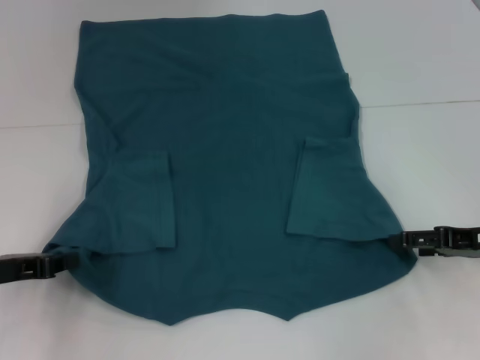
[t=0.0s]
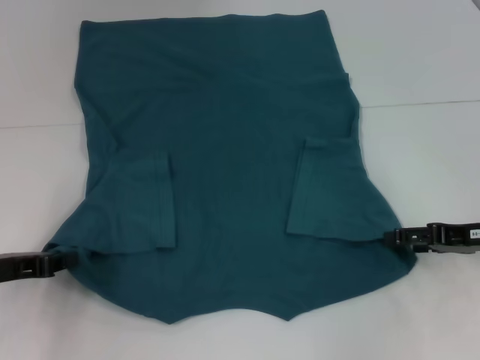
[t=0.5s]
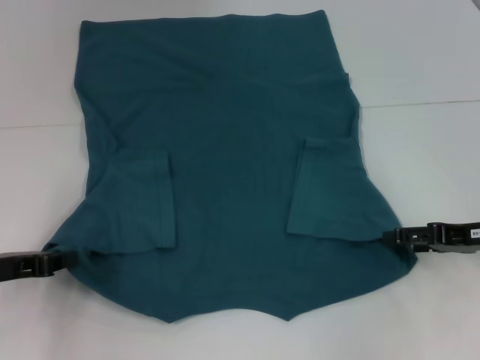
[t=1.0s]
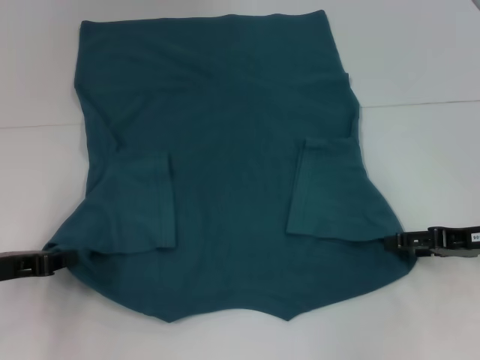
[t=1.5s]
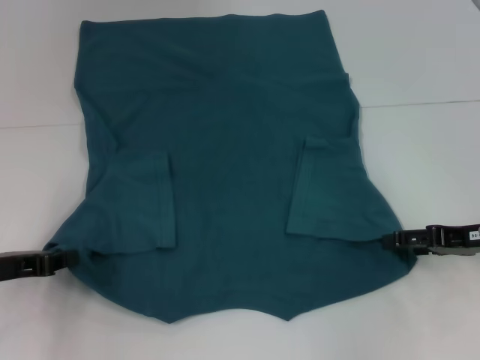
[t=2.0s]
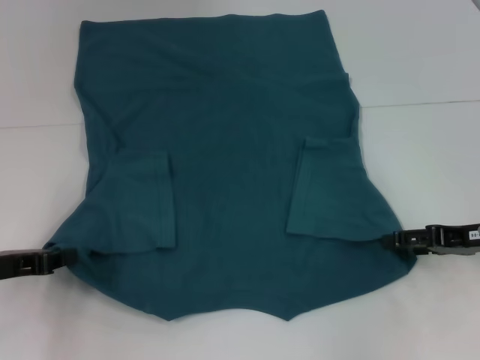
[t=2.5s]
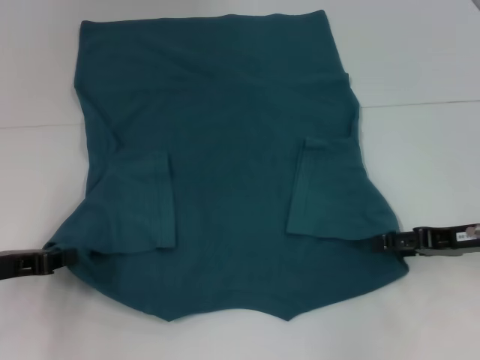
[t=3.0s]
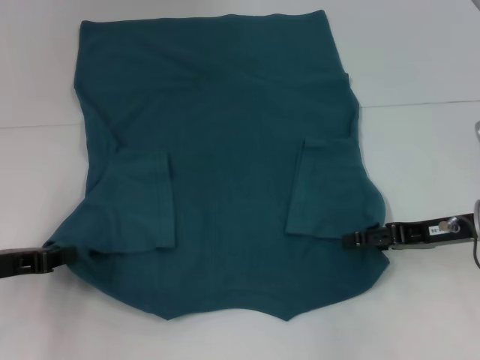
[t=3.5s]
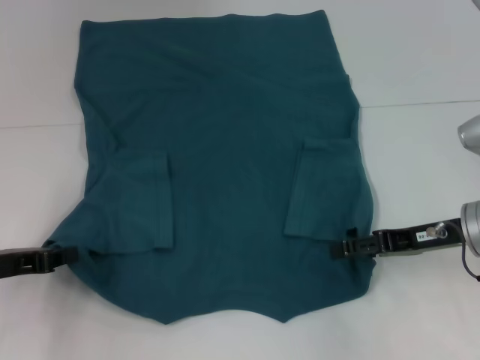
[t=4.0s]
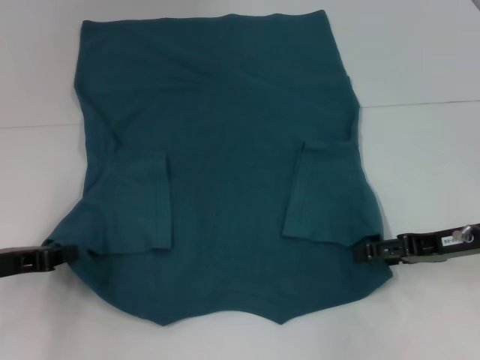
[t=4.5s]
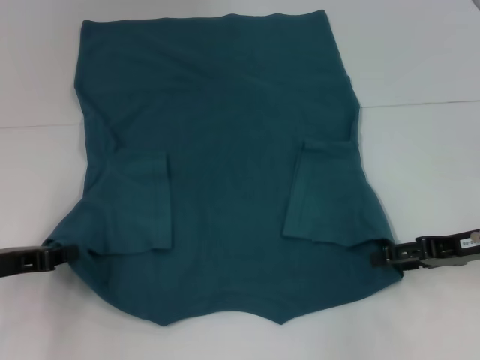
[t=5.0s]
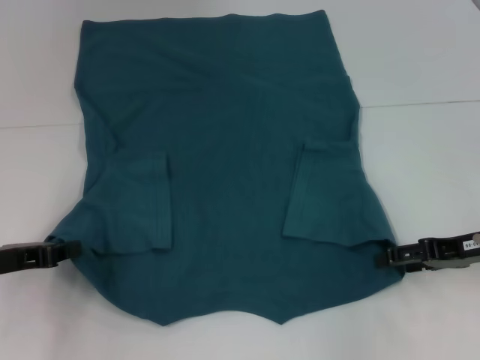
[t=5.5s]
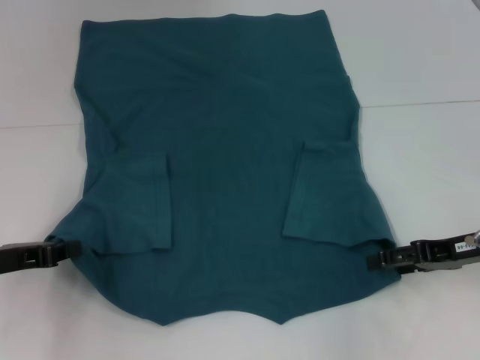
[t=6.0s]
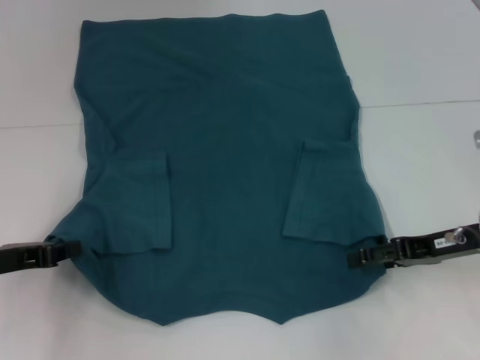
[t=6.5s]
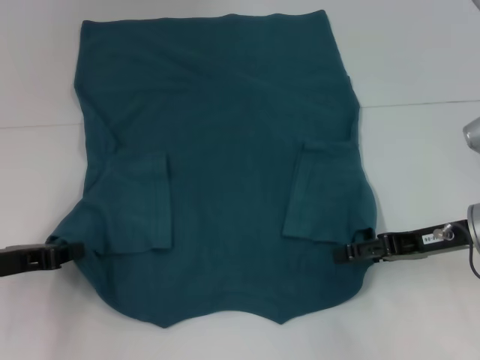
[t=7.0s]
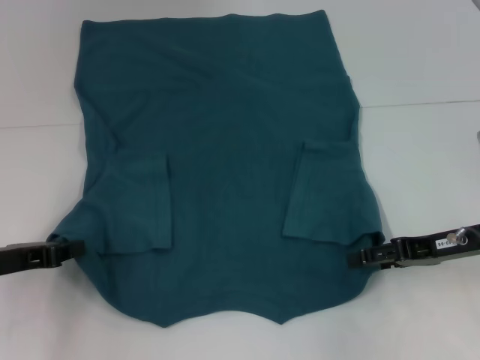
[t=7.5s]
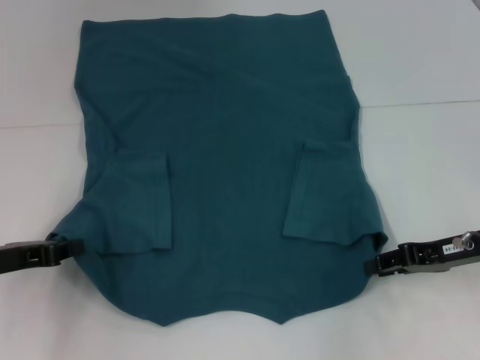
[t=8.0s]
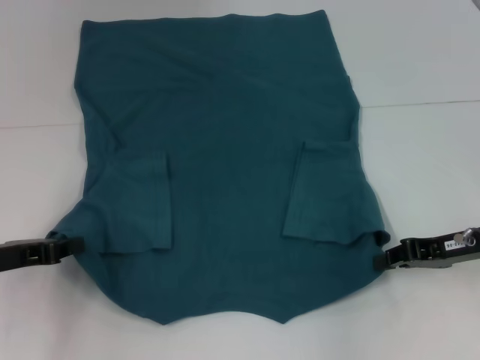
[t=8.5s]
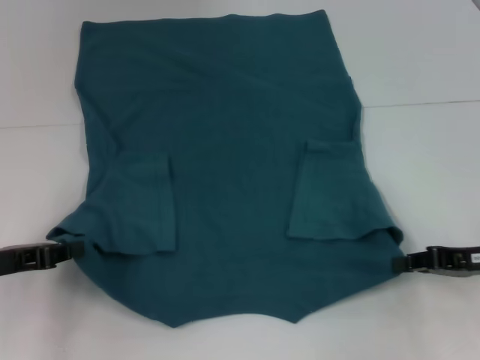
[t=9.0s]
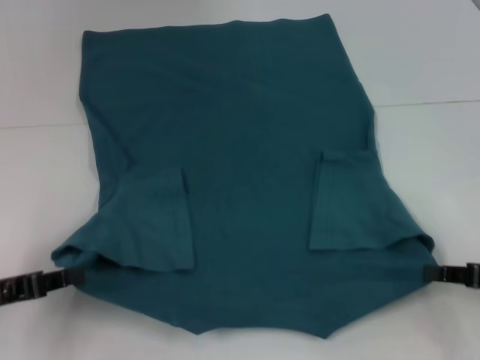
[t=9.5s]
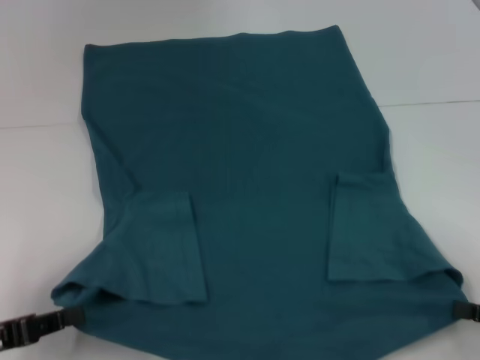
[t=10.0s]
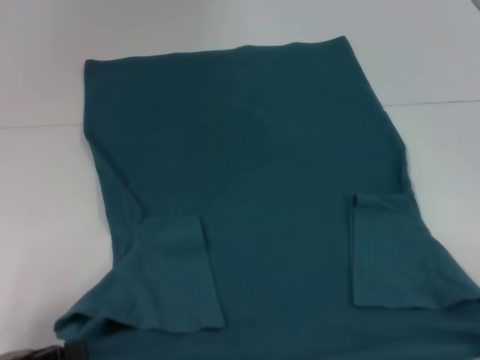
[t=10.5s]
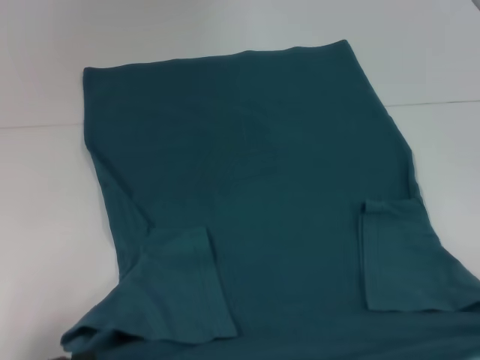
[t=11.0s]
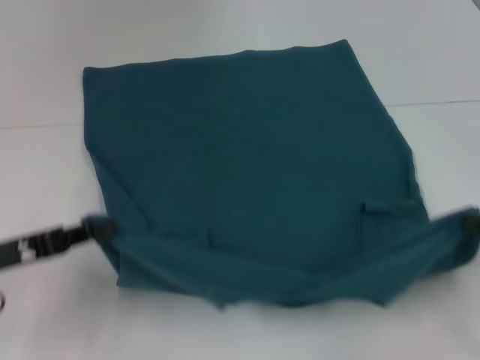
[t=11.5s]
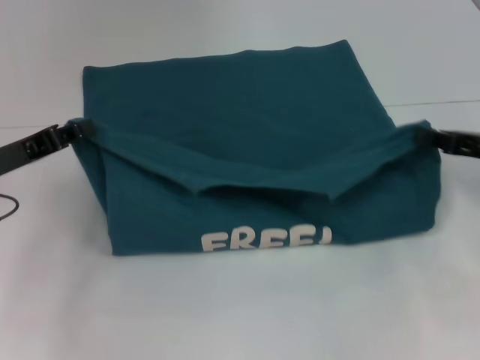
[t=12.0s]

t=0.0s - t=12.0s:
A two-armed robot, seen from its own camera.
Step, t=0.0s - t=8.5s: Grab the bottom right corner with your right hand.
t=0.0s - t=2.0s: Both grippers stay put.
t=2.0s - t=4.0s: The right gripper travels to the left by about 5 cm.
t=4.0s - t=6.0s: The grippers stay close to where they were, moving slightly.
t=6.0s - t=8.0s: The right gripper closes.
t=8.0s - t=10.0s: The right gripper moves backward and to the right, about 15 cm, and closes. Meanwhile the left gripper heads backward, covering about 10 cm.
t=10.0s - t=12.0s: The left gripper travels forward by some 15 cm, while the right gripper heads forward and upward, covering some 15 cm.

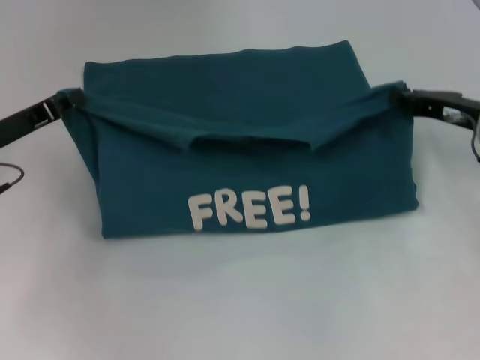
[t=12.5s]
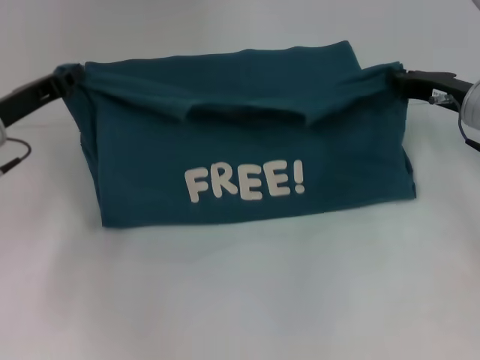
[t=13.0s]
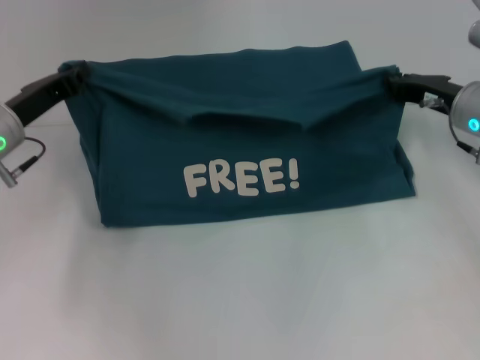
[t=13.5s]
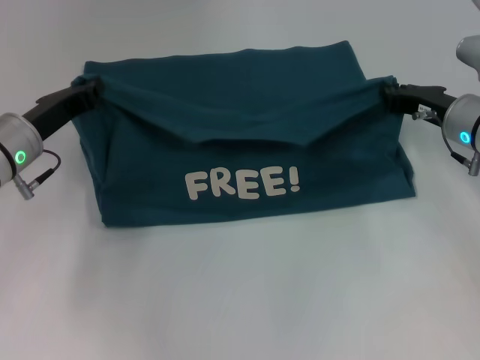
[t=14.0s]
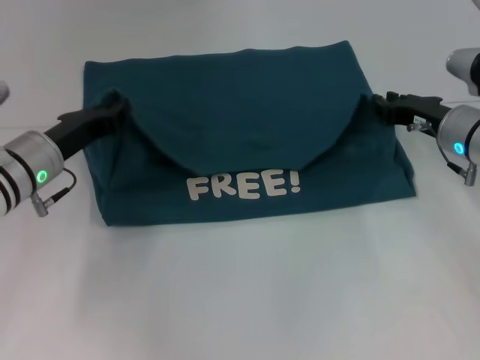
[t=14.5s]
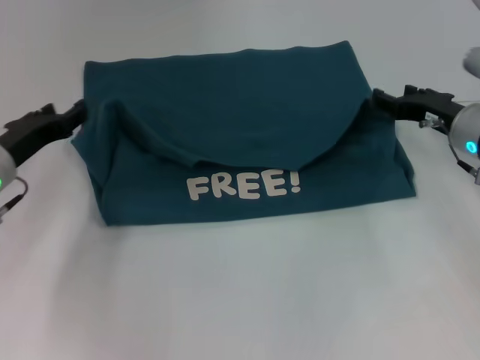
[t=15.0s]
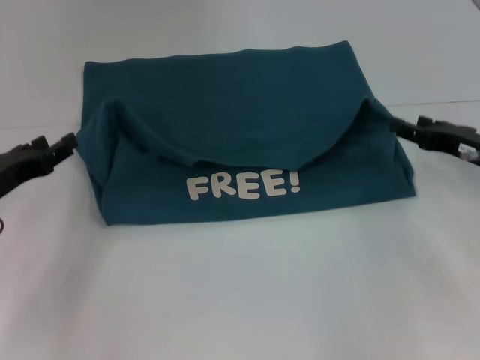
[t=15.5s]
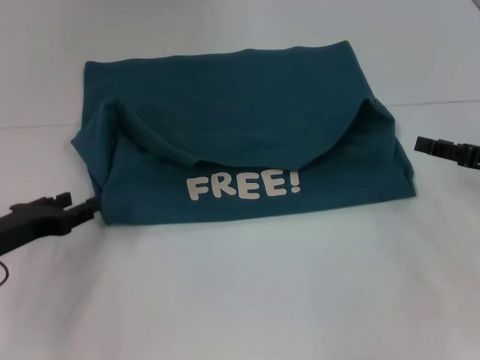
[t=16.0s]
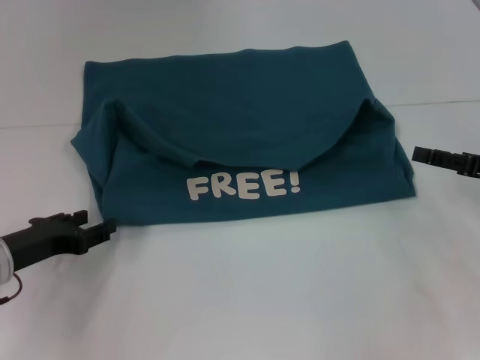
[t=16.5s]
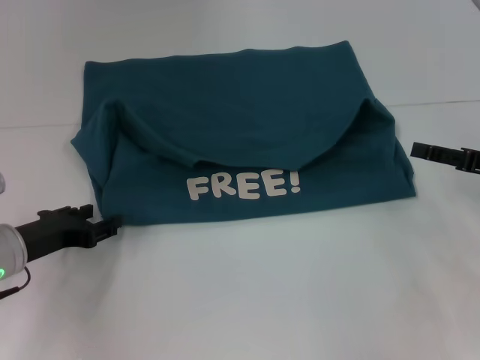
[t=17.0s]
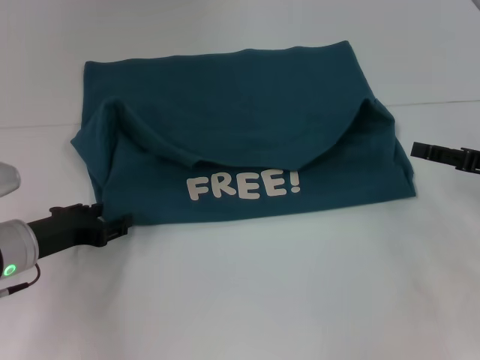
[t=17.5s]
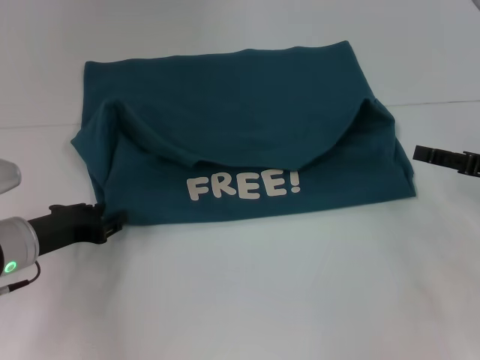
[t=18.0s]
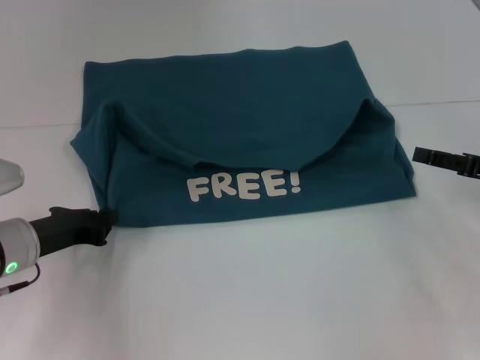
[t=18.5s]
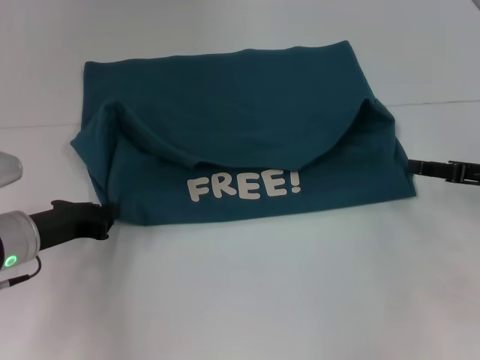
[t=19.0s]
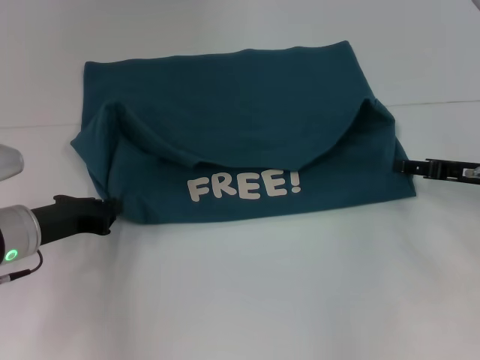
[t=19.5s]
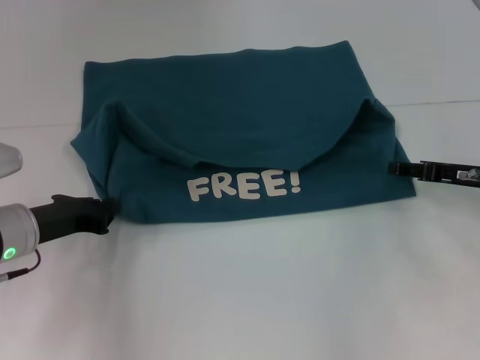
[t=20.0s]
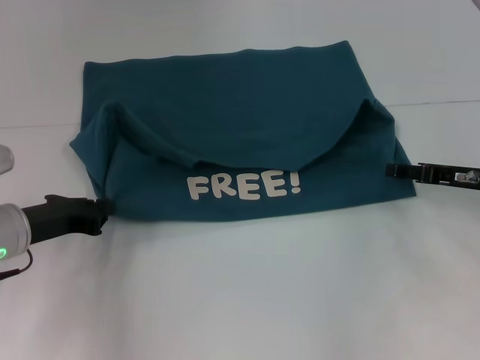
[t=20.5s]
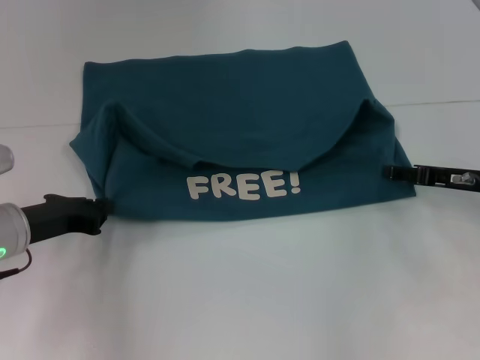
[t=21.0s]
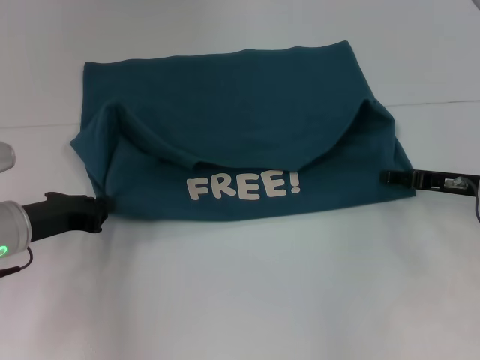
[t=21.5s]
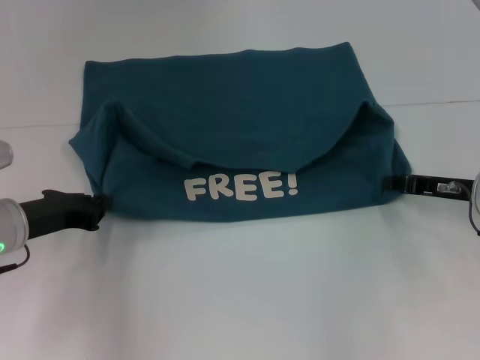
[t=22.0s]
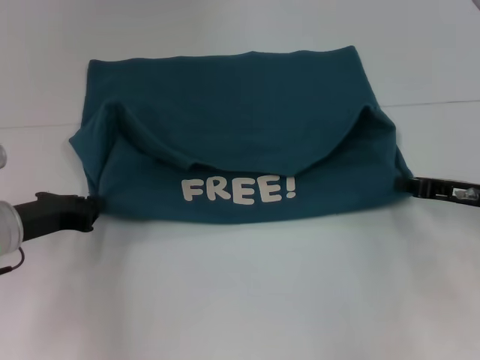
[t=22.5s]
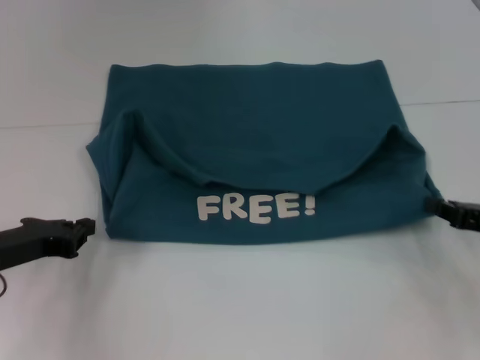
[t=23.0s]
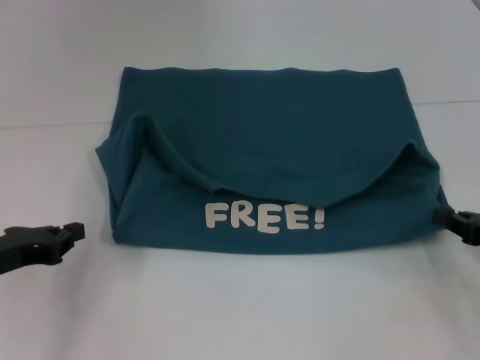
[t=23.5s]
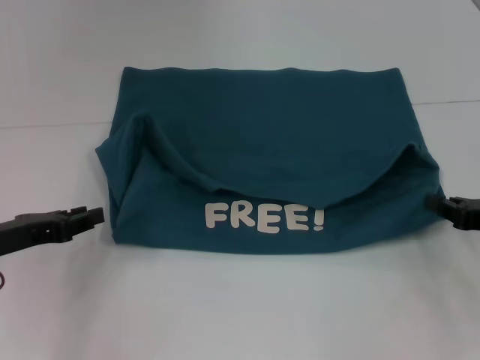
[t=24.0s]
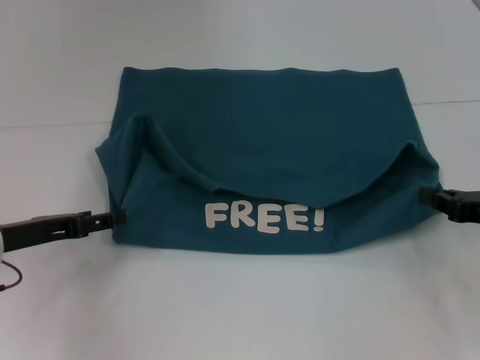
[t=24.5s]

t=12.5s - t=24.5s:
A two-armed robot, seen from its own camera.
Step, t=12.5s - t=15.0s: Fold the clothes to the left.
Step, t=12.5s - t=15.0s: Fold the clothes to the right.
t=12.5s - t=14.5s: The left gripper goes roughly 5 cm to the right.
t=14.5s - t=16.5s: The right gripper goes about 15 cm to the right and backward, and opens up; the left gripper travels backward and to the left by approximately 10 cm, and opens its fingers.
t=16.5s - t=18.5s: The left gripper closes its fingers.
t=18.5s - t=20.5s: The right gripper moves some 5 cm.
t=20.5s - t=22.5s: The right gripper closes.
t=22.5s - t=24.5s: The right gripper changes place by roughly 5 cm, while the left gripper opens.

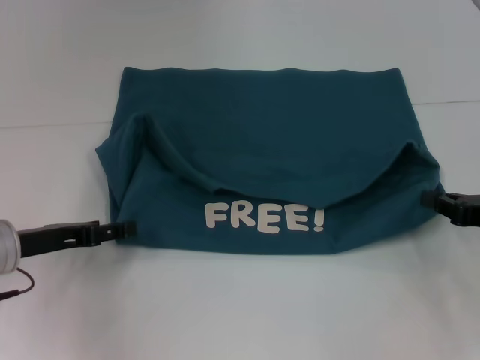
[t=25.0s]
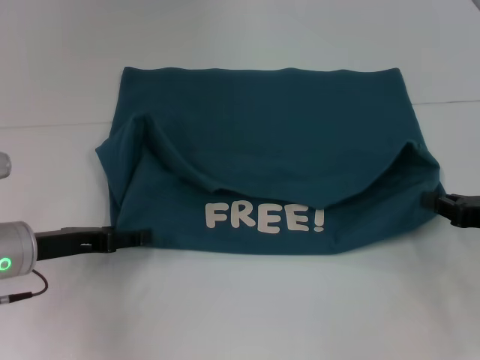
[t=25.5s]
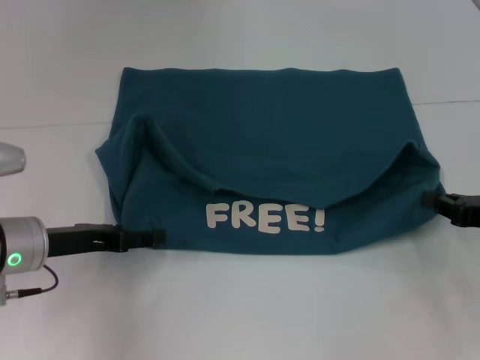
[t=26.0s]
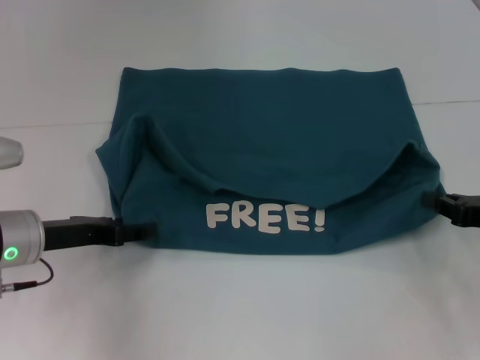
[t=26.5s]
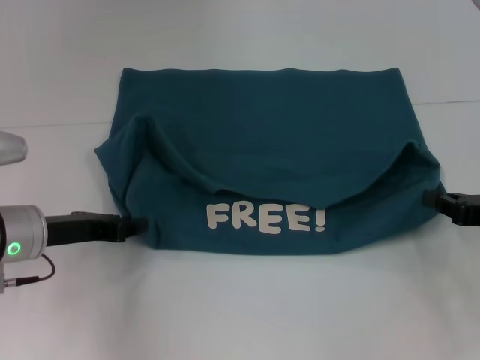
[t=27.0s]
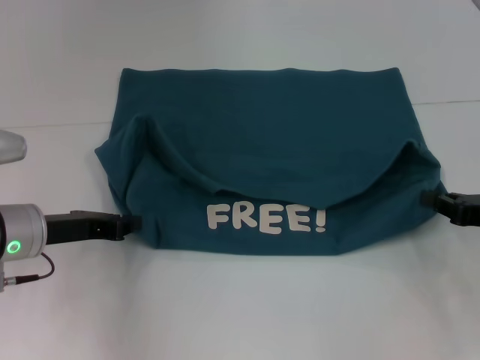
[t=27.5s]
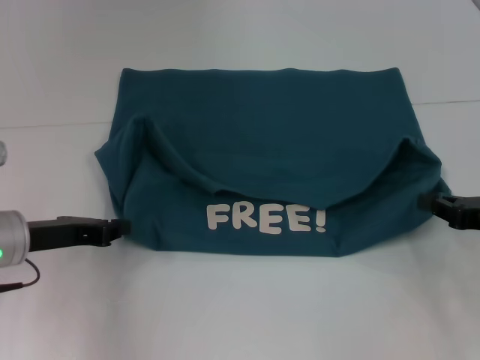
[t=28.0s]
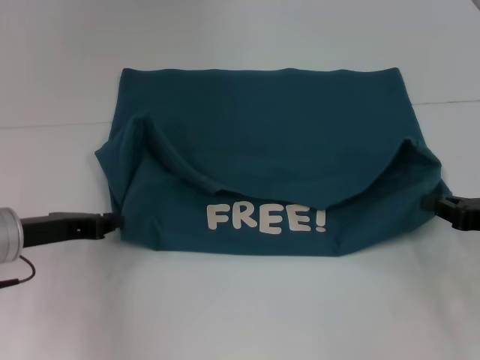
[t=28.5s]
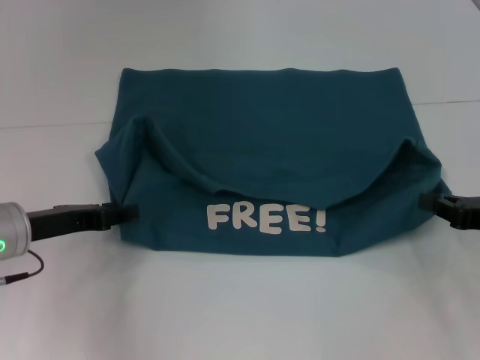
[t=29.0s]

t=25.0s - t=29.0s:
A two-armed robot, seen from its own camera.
t=25.0s - t=27.0s: The left gripper closes.
t=27.0s - t=29.0s: The left gripper closes, then reopens.
